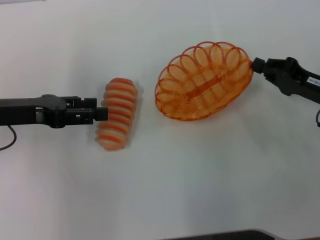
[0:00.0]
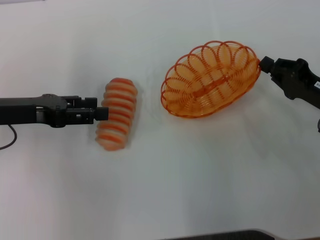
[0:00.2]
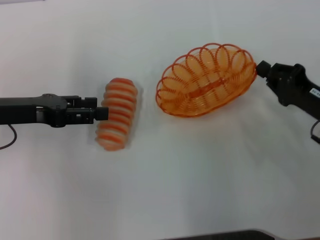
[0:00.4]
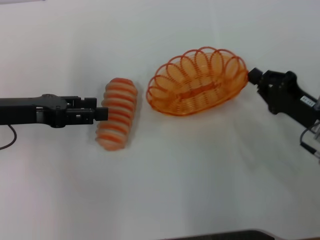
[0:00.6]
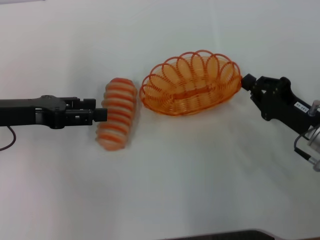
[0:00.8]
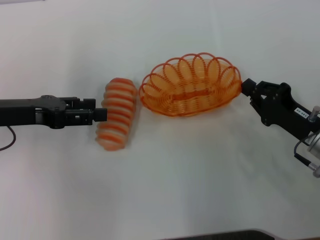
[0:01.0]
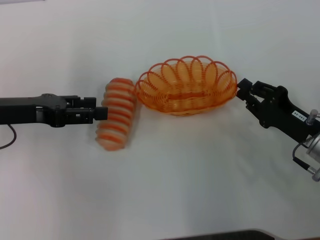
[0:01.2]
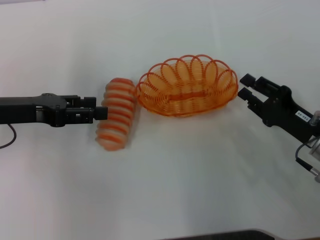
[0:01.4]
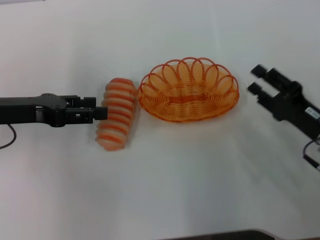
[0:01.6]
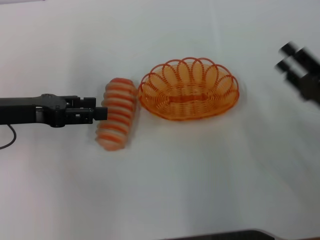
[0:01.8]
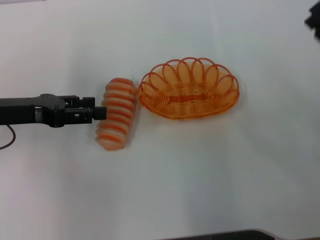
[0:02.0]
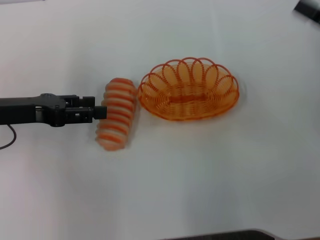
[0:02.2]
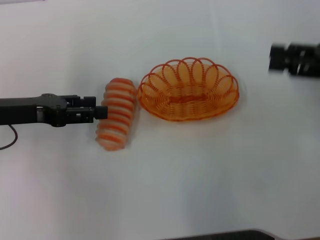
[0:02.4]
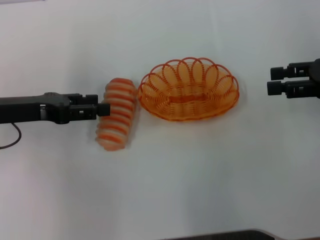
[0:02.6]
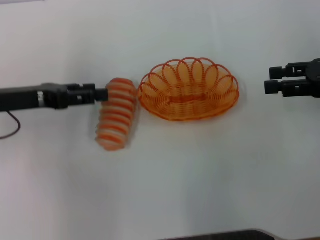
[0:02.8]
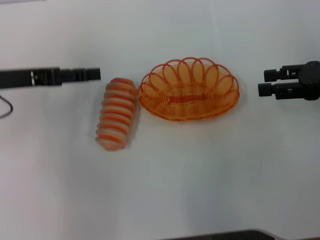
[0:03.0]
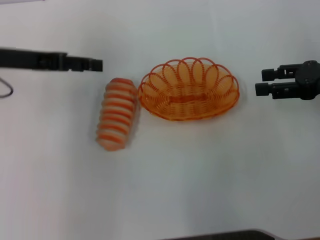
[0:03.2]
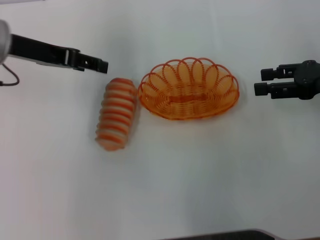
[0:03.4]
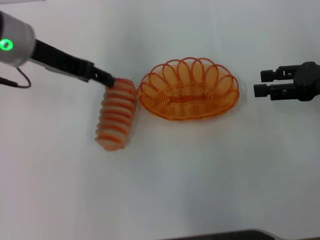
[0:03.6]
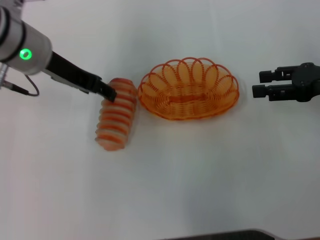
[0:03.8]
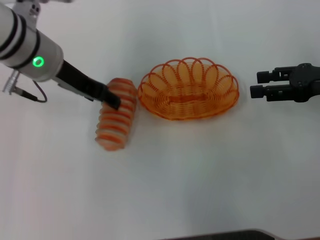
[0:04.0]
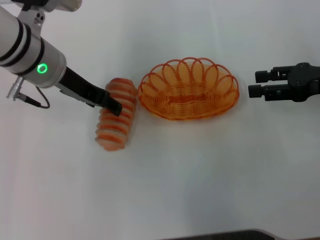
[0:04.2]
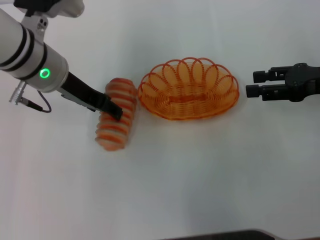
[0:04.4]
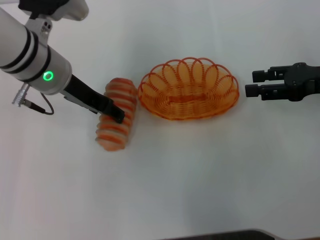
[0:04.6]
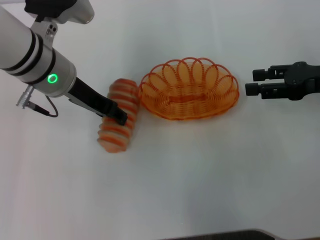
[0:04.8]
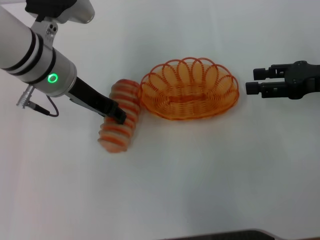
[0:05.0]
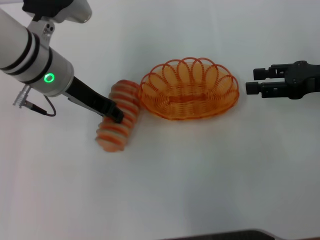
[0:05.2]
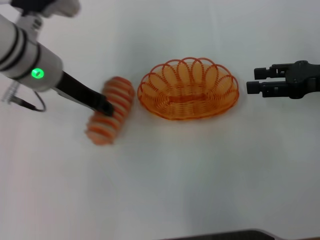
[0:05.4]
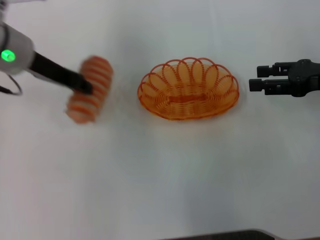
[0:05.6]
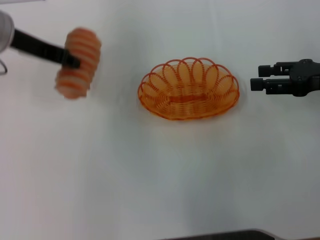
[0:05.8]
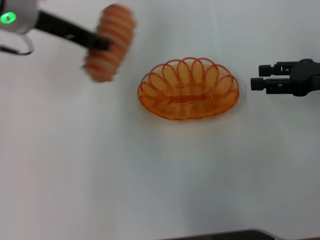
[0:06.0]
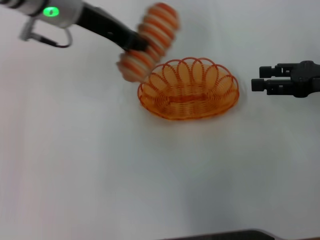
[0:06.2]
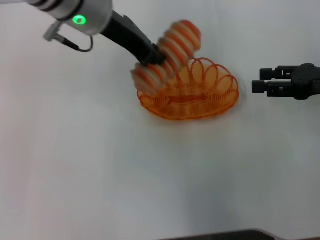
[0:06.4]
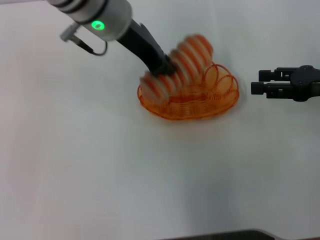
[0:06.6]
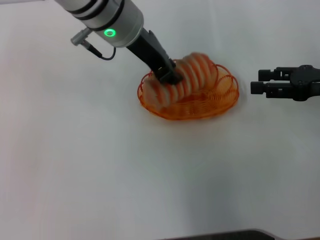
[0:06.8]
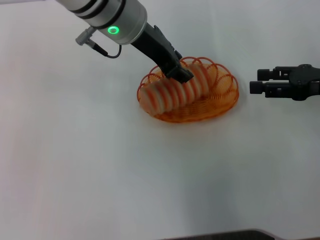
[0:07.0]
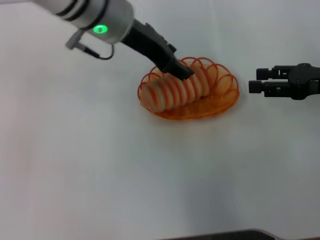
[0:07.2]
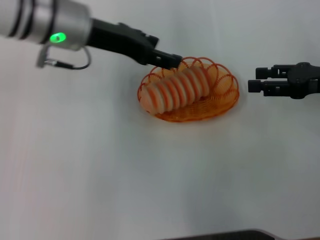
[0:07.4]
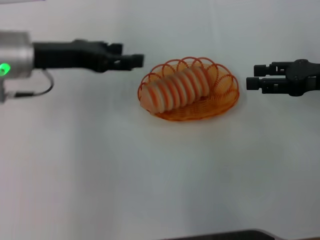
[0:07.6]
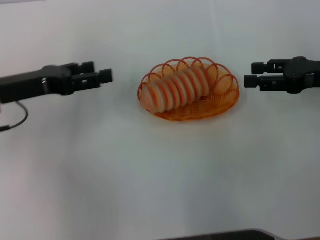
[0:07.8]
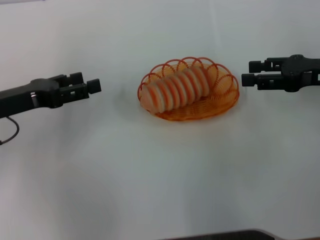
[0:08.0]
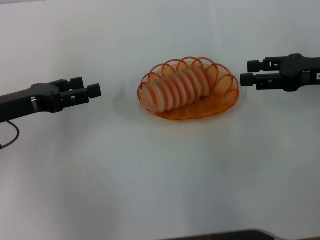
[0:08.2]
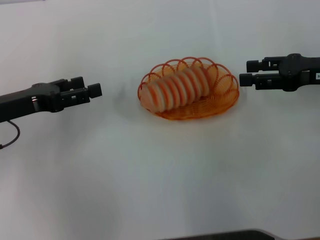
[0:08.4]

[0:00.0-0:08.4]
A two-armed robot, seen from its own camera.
Step, 0:00.0 to 0:01.6: Place the basket in the center of view with the right gripper.
Step, 0:01.8 to 0:05.4: Pick up the long bread with the left gripper.
Step, 0:05.6 to 0:07.4: Place the long bread into the basket with the left gripper.
0:00.0 to 0:01.4: The right gripper goes roughly 5 cm backward.
0:01.4 to 0:02.8: The right gripper heads upward, forward and to the right, covering approximately 15 cm, and opens its fingers.
0:02.8 to 0:04.2: The left gripper is displaced to the right and forward by about 10 cm.
0:04.2 to 0:05.6: The left gripper closes its fingers.
0:05.6 to 0:07.0: The left gripper goes some 15 cm to the right.
0:07.0 to 0:08.4: The left gripper heads to the left, downward and backward, covering about 25 cm, and opens its fingers.
